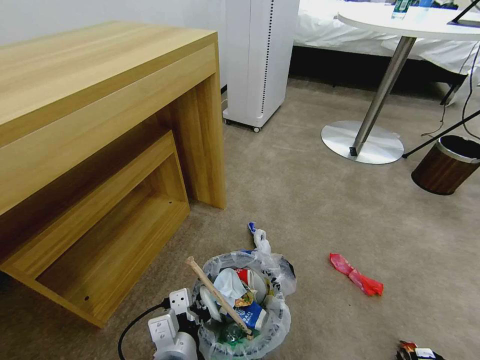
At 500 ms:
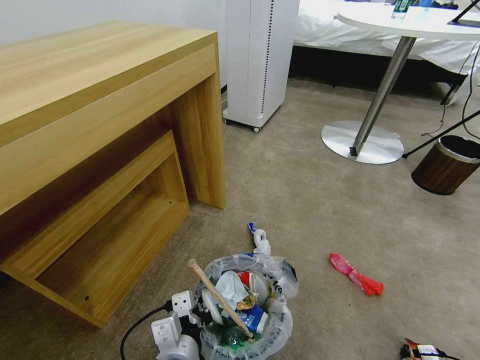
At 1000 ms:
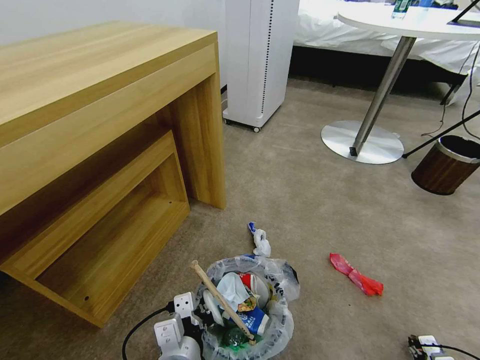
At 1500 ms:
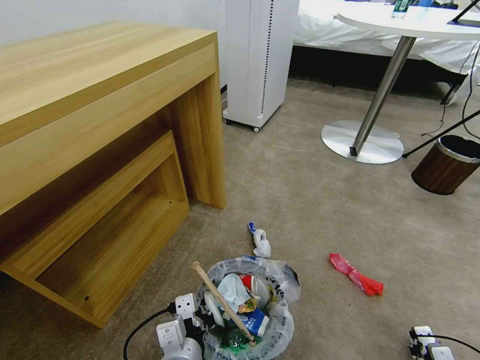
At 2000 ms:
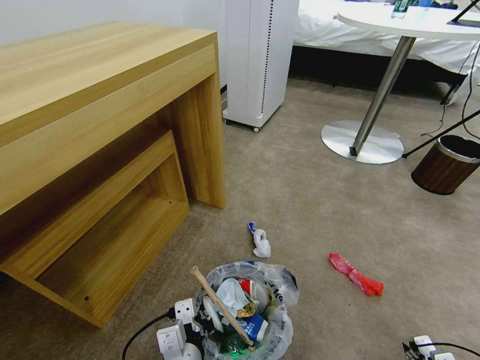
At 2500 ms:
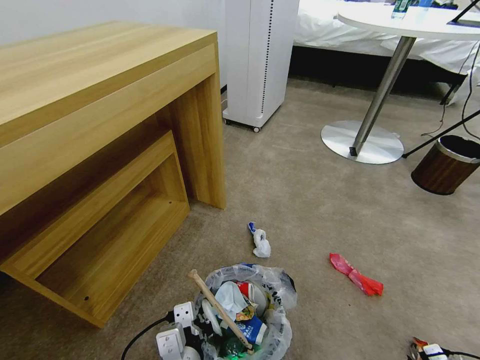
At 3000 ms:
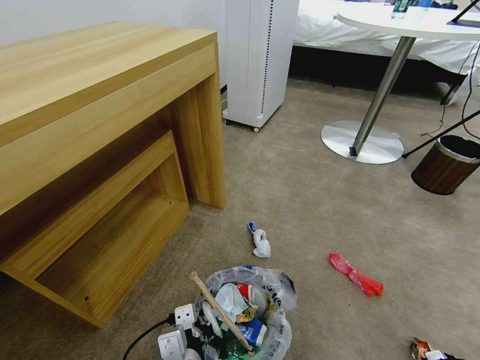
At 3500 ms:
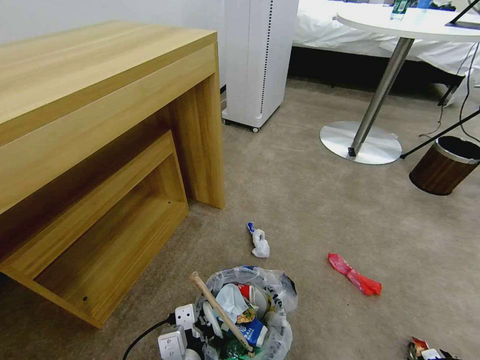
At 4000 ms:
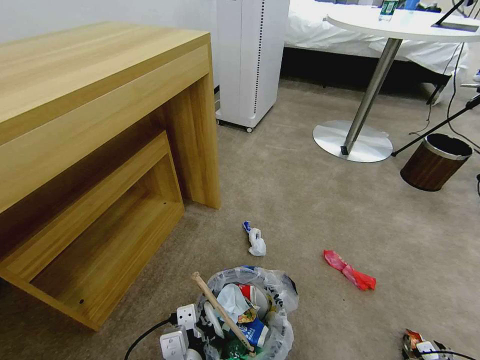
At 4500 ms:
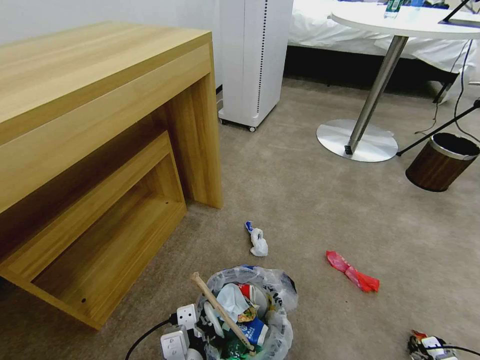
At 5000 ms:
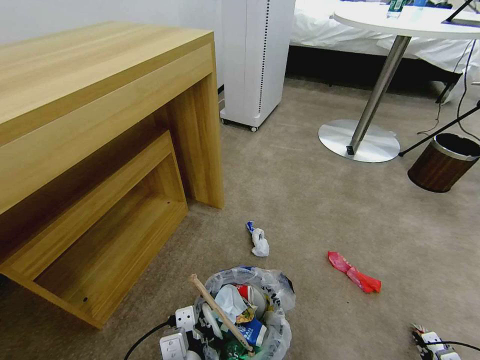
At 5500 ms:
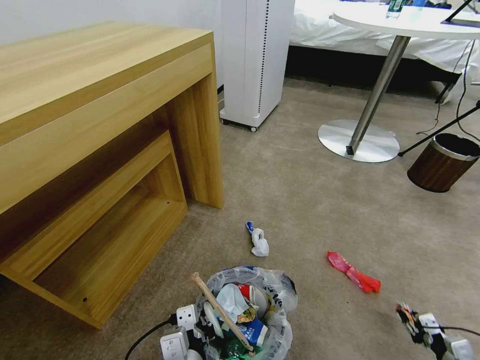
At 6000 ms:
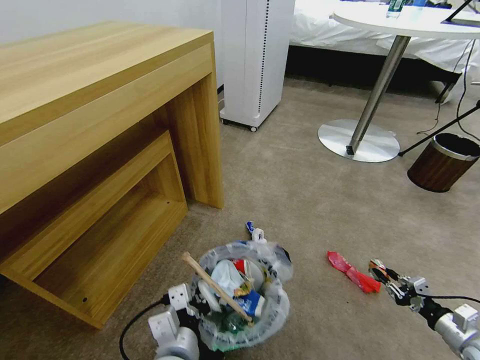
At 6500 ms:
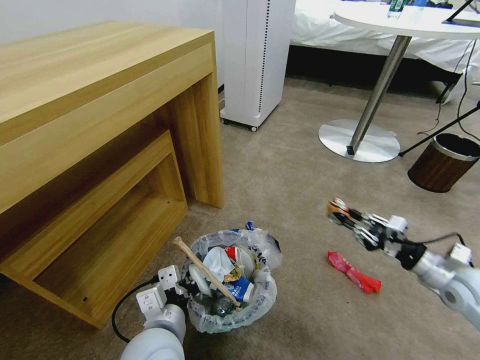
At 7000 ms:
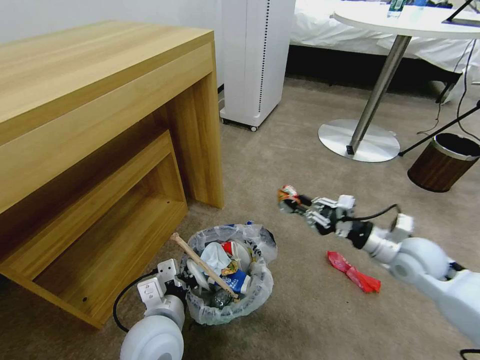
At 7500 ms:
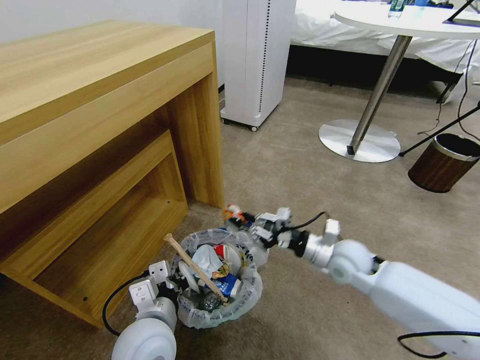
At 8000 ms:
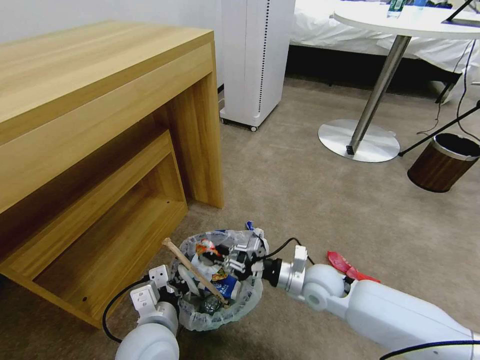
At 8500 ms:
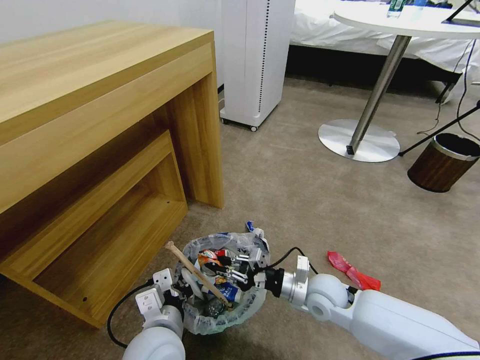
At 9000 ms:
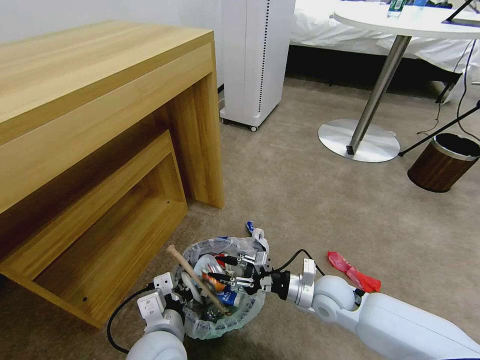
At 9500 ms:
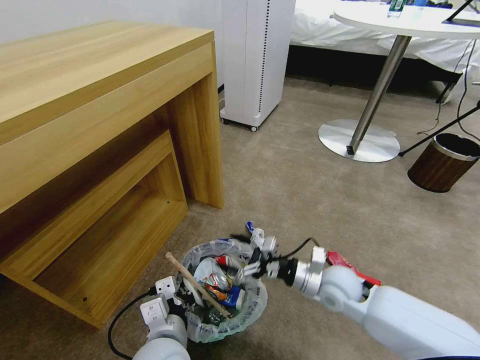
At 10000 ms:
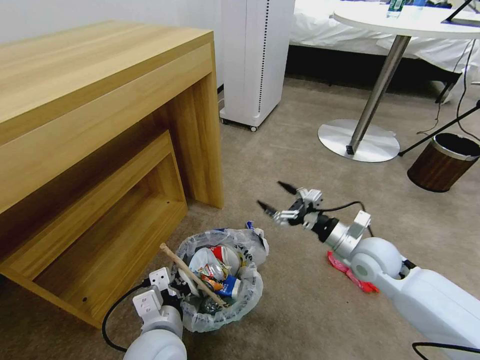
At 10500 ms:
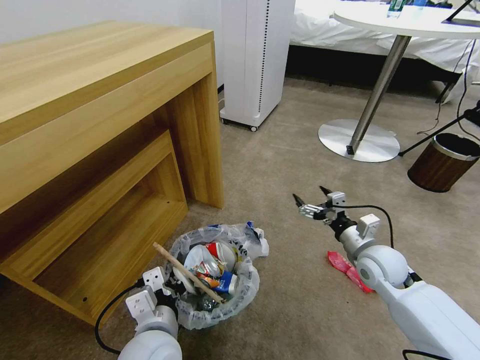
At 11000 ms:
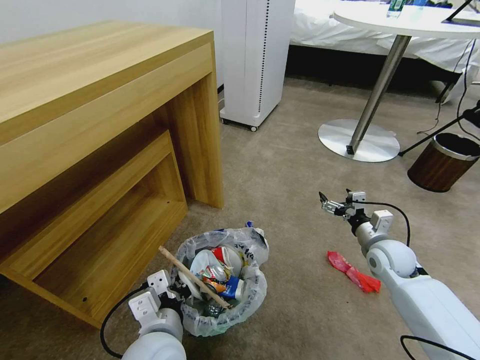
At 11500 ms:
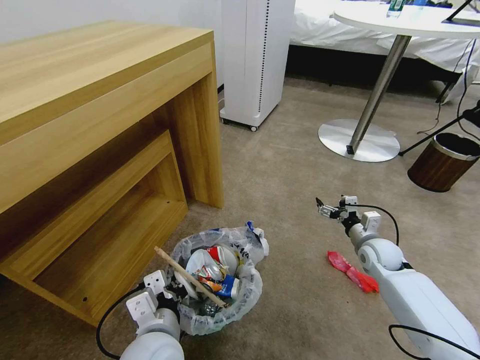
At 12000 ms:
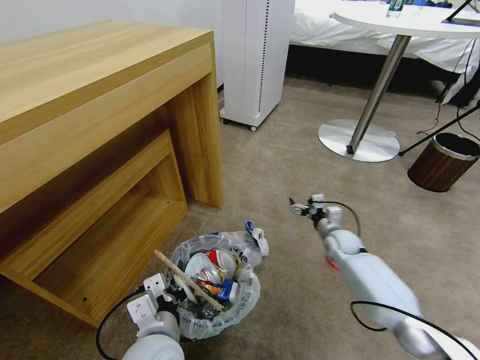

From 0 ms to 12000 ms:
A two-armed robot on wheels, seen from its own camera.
Task of the whole recording: Pick up the trash bin and place the garbage on the floor into it.
From 0 ms to 2000 ms: The right gripper changes place by approximately 5 cm, and closes up.
From 2000 ms to 4000 ms: The right gripper shifts some 5 cm downward, and opens its fingers.
From 4000 ms to 6000 ms: The right gripper is displaced upward and forward by some 15 cm, and closes.
From 6000 ms to 8000 ms: The left gripper moves some 5 cm. The right gripper heads to the left and forward, covering some 40 cm.
From 8000 ms to 10000 ms: The right gripper is displaced to the right and upward by roughly 15 cm, and opens up.
From 10000 ms to 12000 ms: The right gripper moves downward and forward, approximately 20 cm.

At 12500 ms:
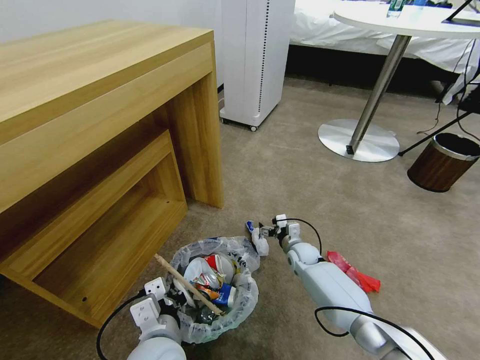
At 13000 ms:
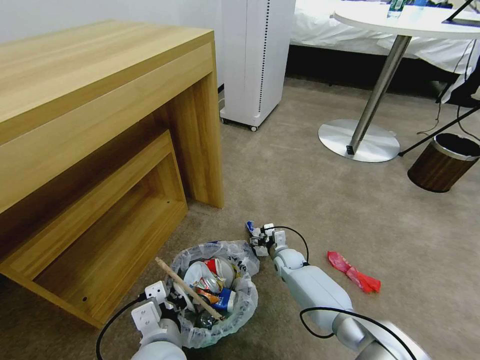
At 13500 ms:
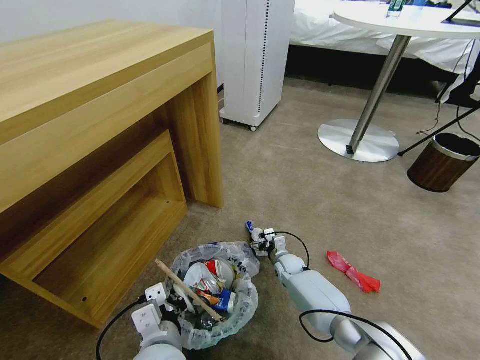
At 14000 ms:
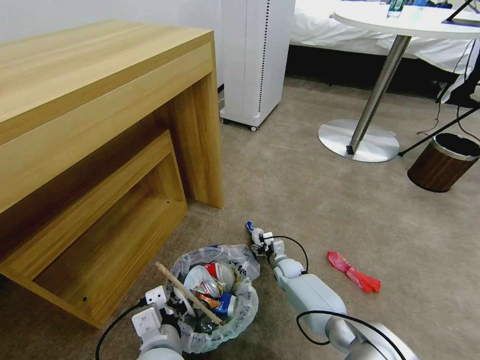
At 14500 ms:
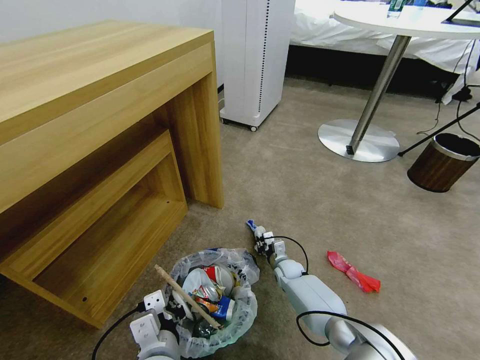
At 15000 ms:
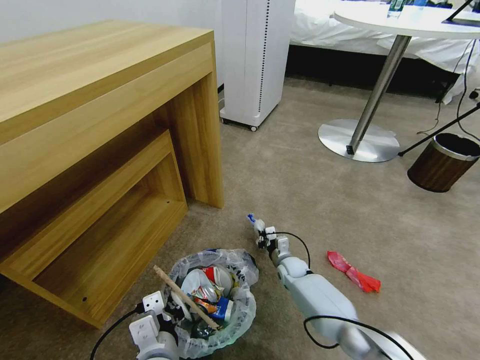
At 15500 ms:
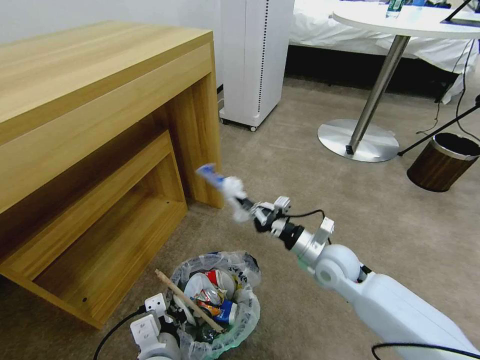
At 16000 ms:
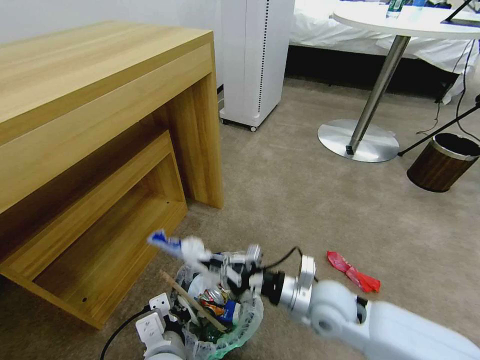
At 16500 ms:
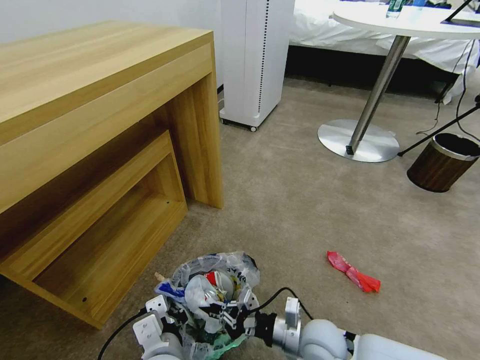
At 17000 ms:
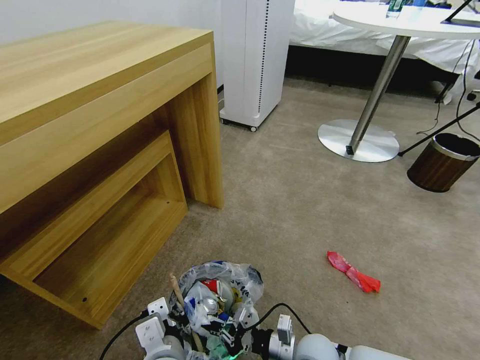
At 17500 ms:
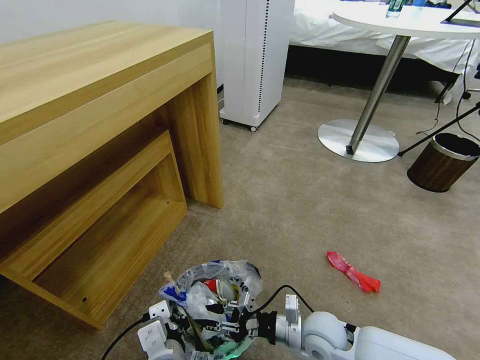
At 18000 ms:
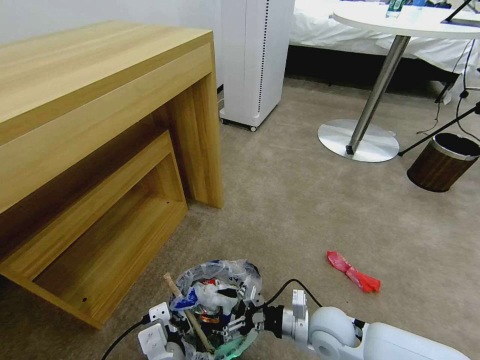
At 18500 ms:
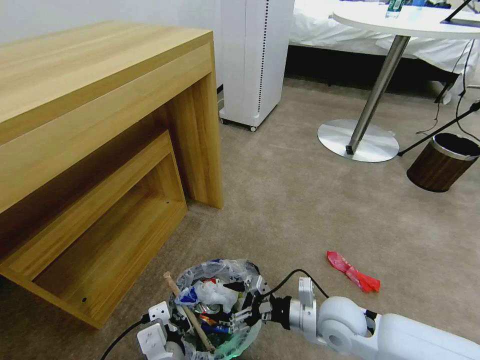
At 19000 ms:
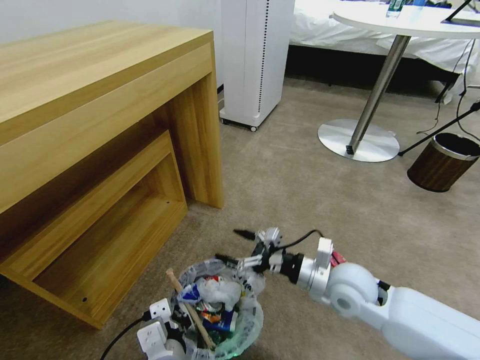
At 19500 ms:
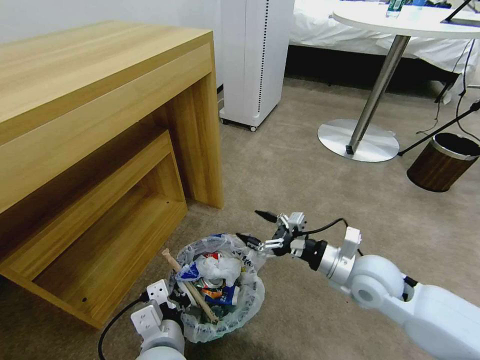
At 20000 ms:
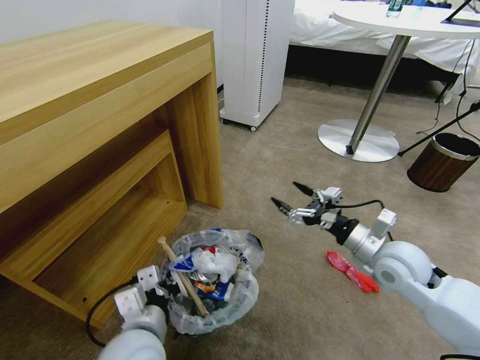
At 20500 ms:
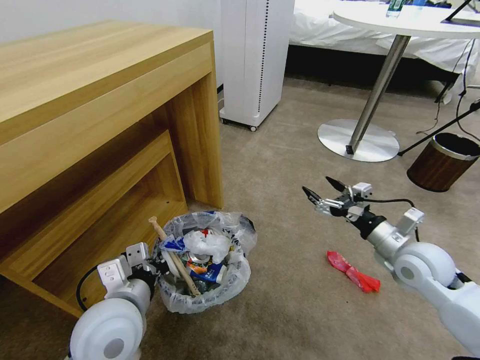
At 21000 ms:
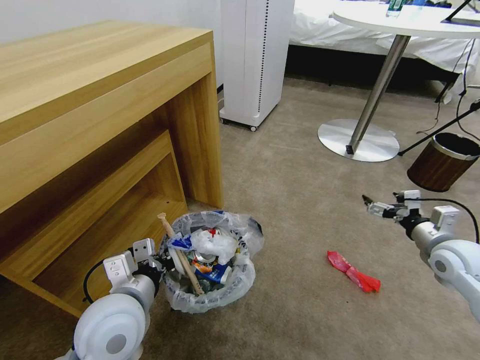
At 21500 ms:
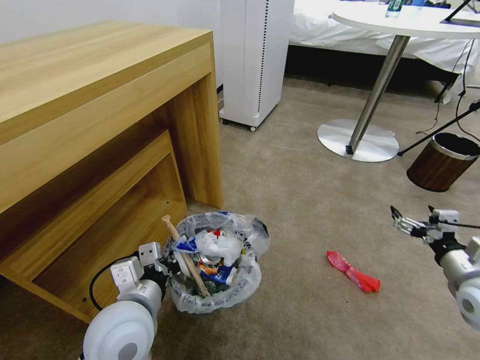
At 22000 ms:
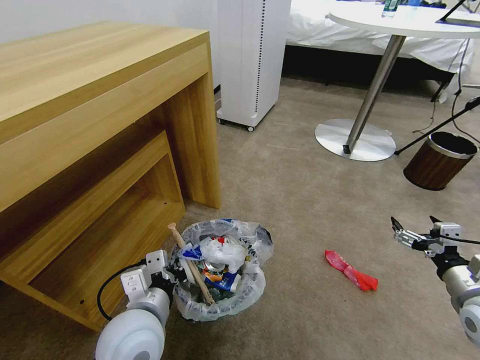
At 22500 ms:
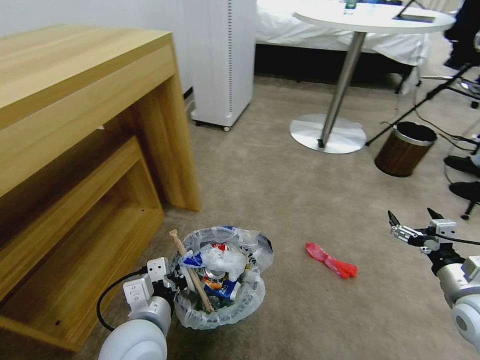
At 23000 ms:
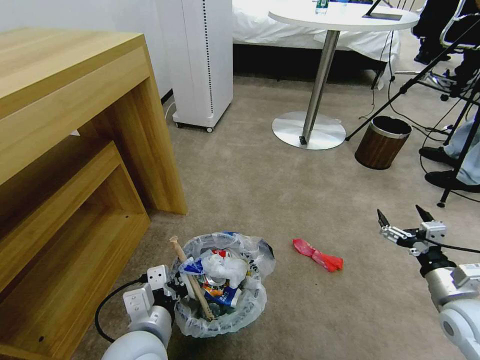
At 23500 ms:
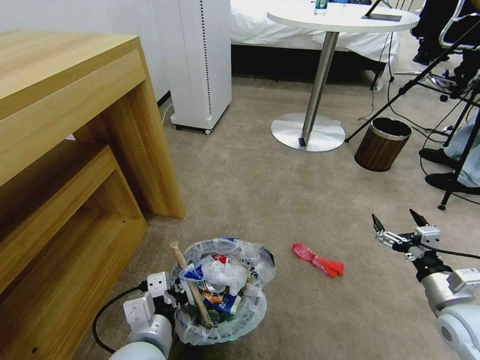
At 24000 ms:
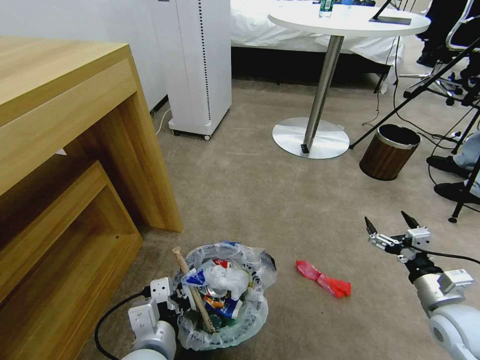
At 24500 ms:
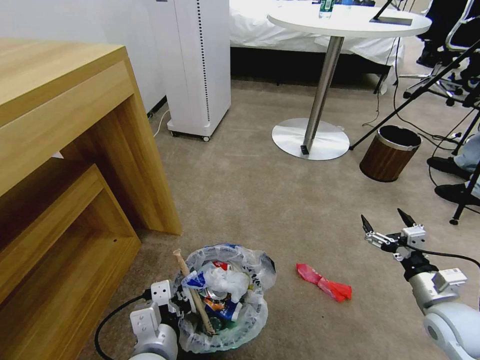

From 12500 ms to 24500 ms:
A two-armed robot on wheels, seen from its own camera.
Task of the whole recording: Pick up the trash bin and place the garbage on the floor into it.
From 12500 ms to 14500 ms: The right gripper moves downward, roughly 10 cm, and closes up.
From 14500 ms to 16500 ms: The right gripper goes roughly 30 cm backward and upward.
From 16500 ms to 18500 ms: The right gripper is displaced upward by about 5 cm, and opens up.
From 18500 ms to 20500 ms: The left gripper shifts about 15 cm to the left, forward and upward. Meanwhile the right gripper moves to the right, upward and forward, approximately 20 cm.
From 20500 ms to 22500 ms: The left gripper ends up about 5 cm from where it was. Meanwhile the right gripper goes roughly 15 cm to the right and backward.
From 22500 ms to 24500 ms: The right gripper shifts by some 5 cm. The left gripper shifts by some 5 cm.

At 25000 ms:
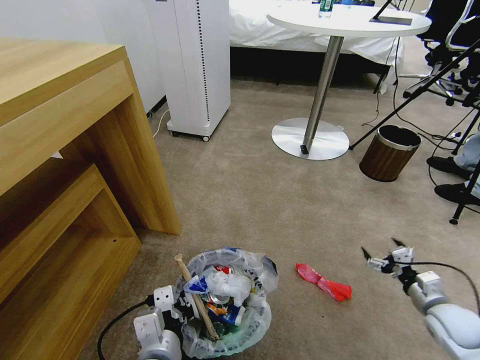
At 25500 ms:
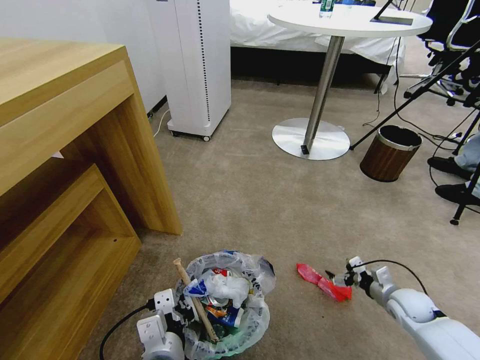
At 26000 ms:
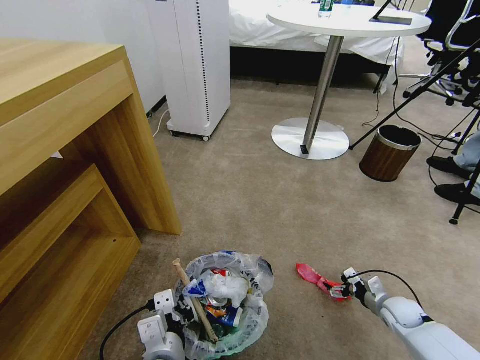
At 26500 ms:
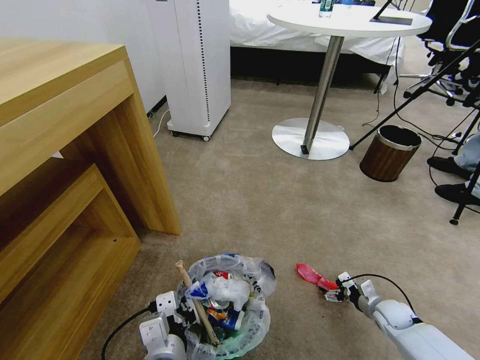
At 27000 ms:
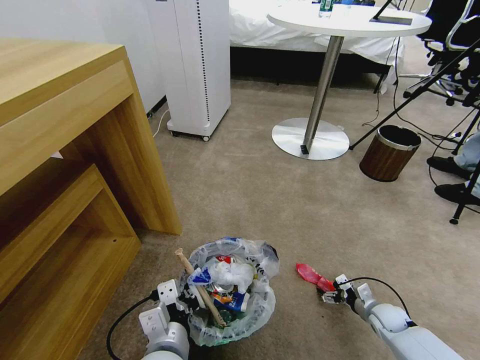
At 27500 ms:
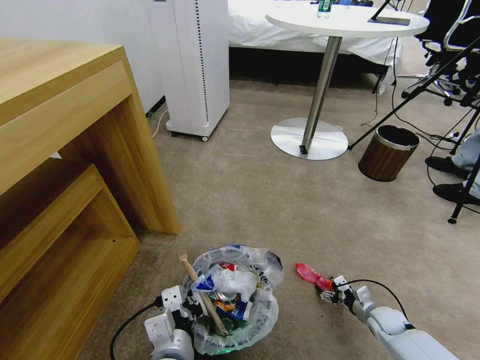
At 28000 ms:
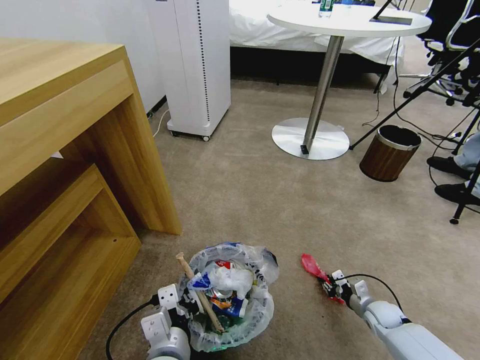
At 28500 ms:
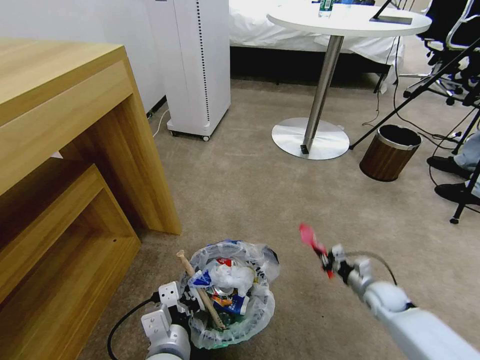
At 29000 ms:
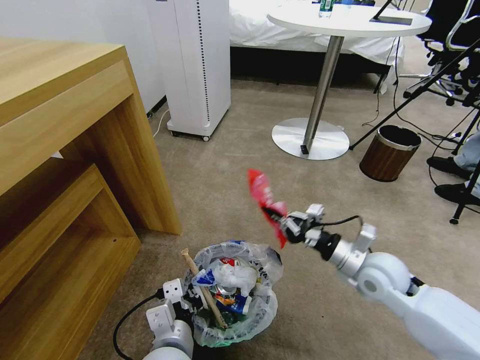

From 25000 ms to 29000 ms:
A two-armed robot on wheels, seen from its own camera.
Task of the whole recording: Pick up the trash bin and place the garbage on the floor into it.
From 25000 ms to 27000 ms: The right gripper goes about 15 cm downward.
From 27000 ms to 29000 ms: The right gripper shifts about 30 cm upward and to the left, and closes its fingers.
